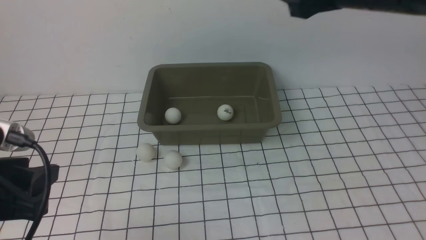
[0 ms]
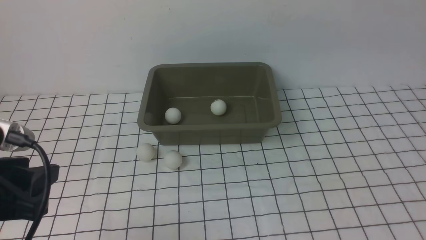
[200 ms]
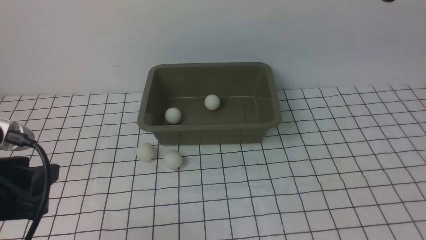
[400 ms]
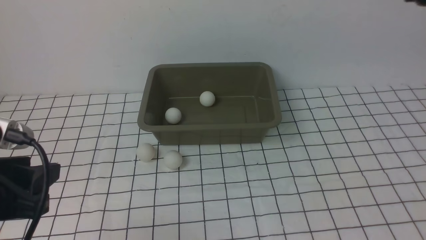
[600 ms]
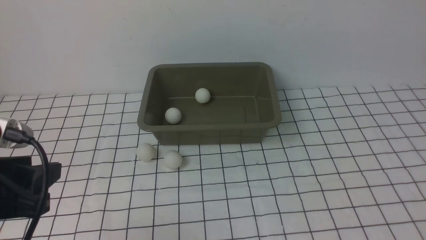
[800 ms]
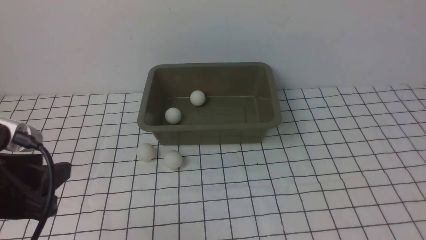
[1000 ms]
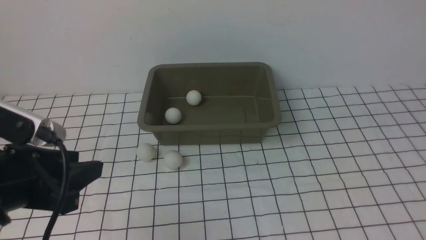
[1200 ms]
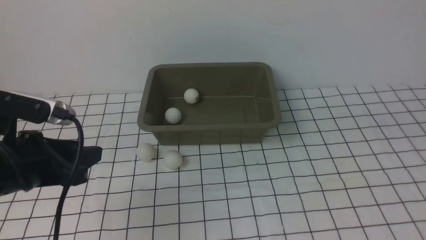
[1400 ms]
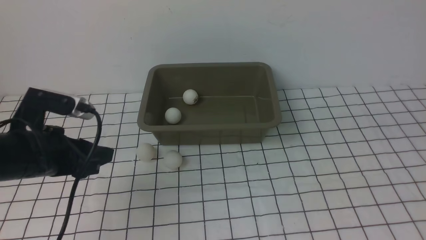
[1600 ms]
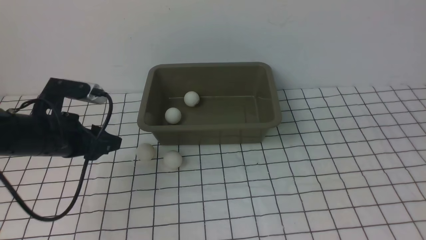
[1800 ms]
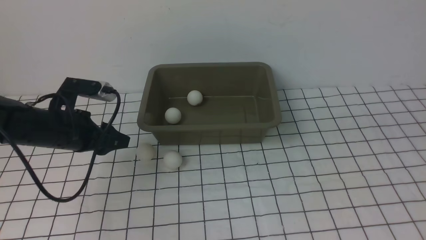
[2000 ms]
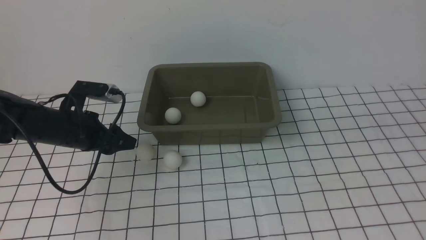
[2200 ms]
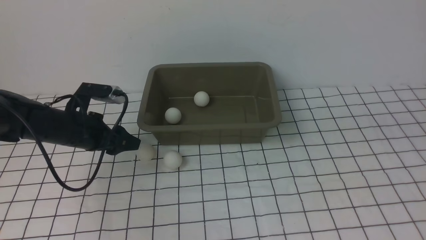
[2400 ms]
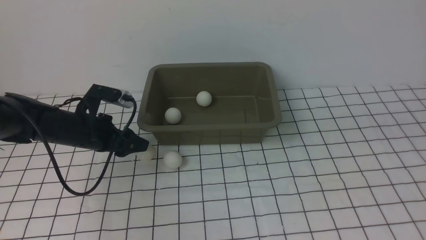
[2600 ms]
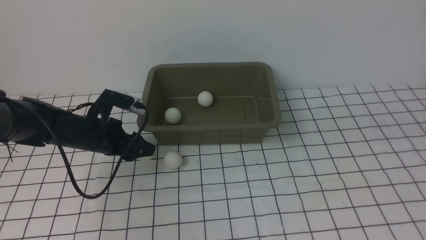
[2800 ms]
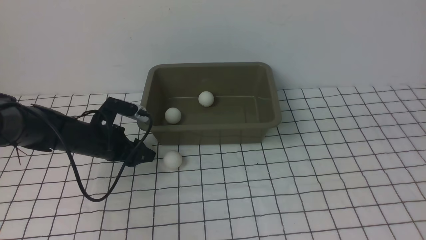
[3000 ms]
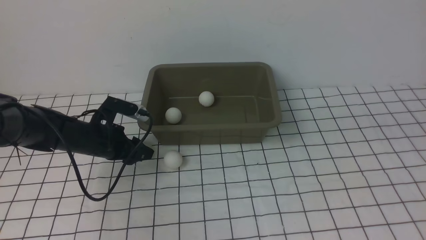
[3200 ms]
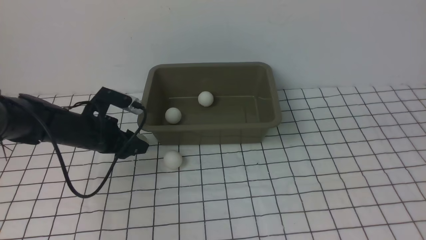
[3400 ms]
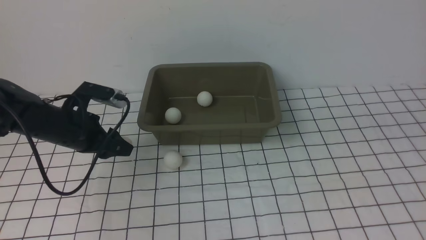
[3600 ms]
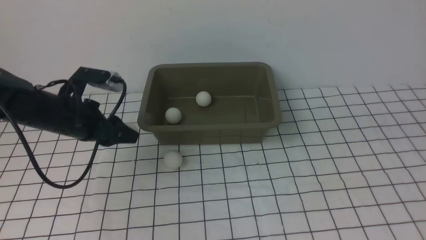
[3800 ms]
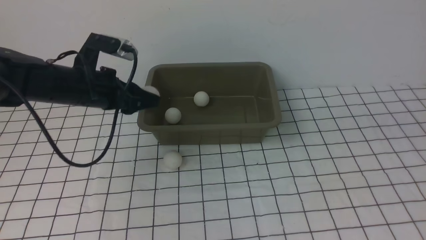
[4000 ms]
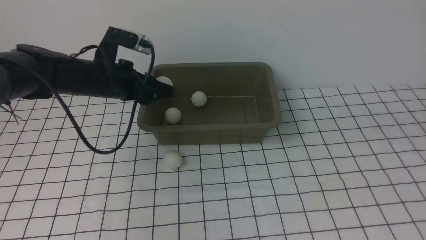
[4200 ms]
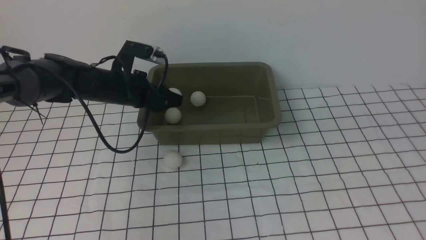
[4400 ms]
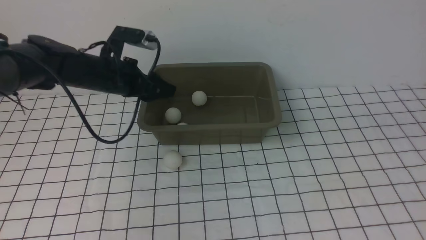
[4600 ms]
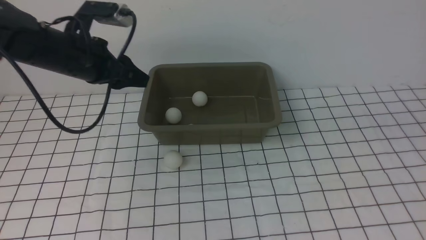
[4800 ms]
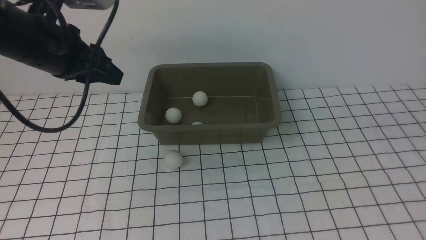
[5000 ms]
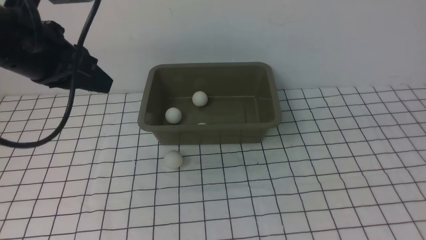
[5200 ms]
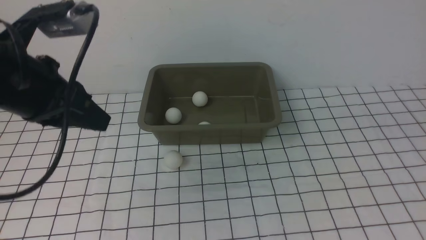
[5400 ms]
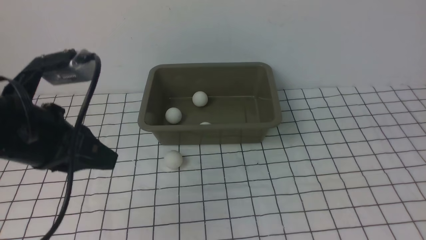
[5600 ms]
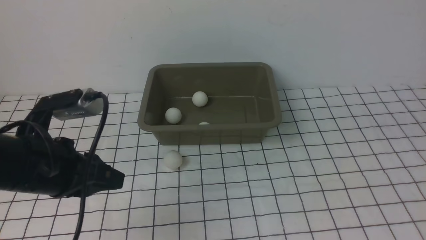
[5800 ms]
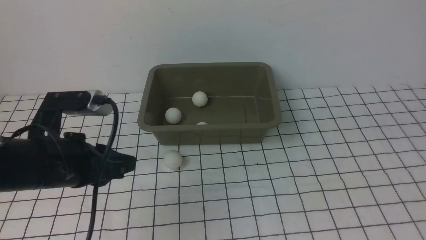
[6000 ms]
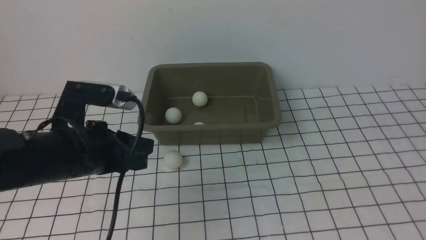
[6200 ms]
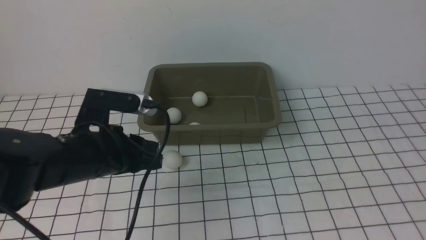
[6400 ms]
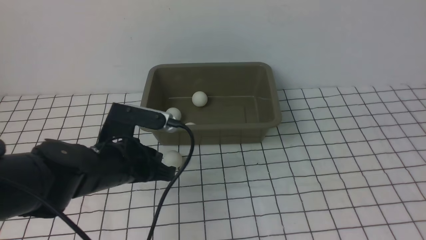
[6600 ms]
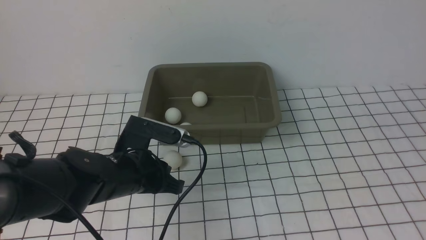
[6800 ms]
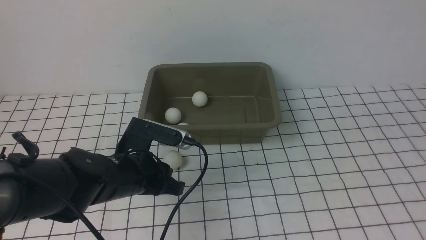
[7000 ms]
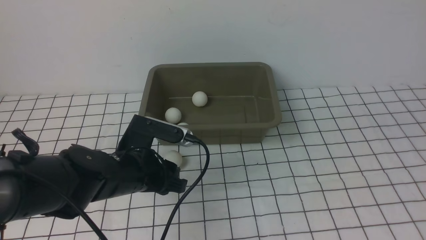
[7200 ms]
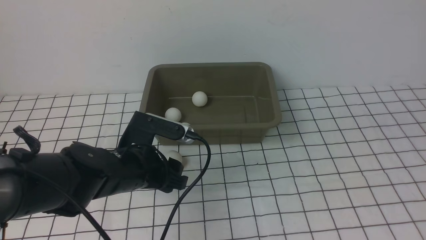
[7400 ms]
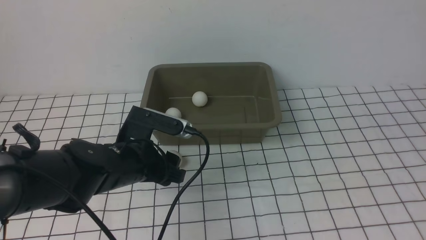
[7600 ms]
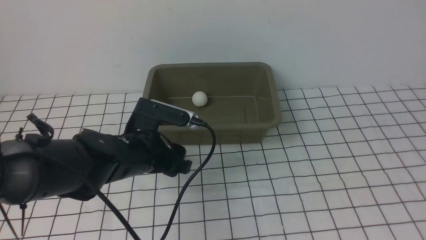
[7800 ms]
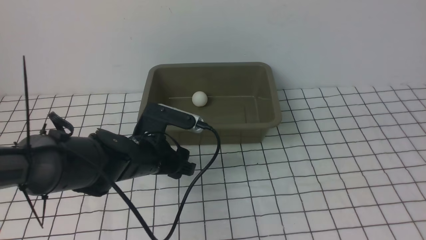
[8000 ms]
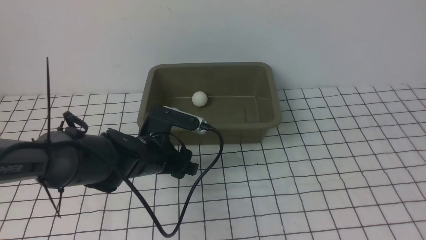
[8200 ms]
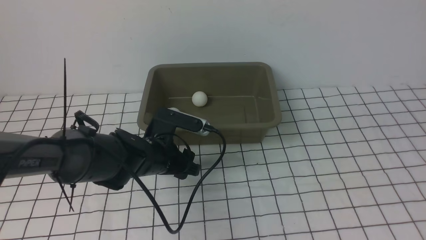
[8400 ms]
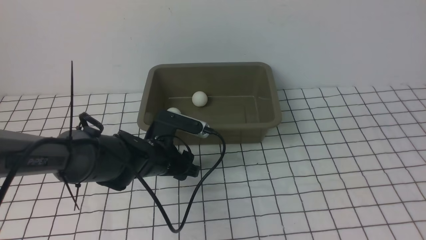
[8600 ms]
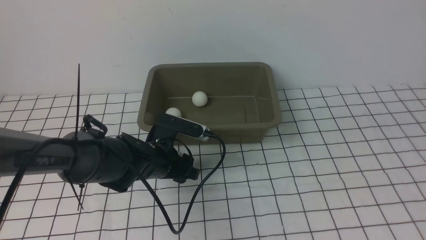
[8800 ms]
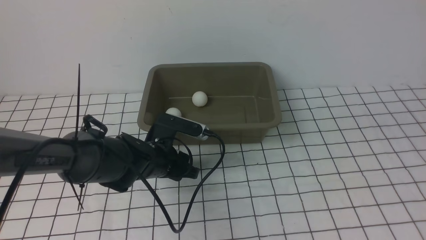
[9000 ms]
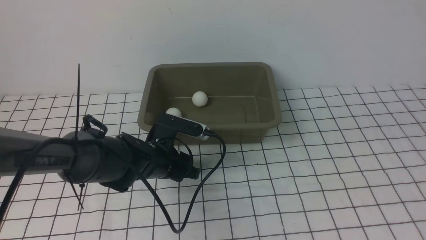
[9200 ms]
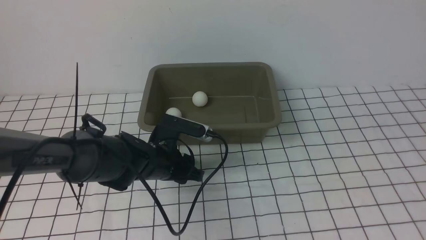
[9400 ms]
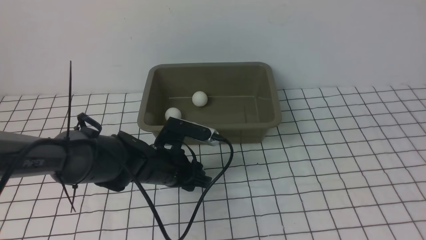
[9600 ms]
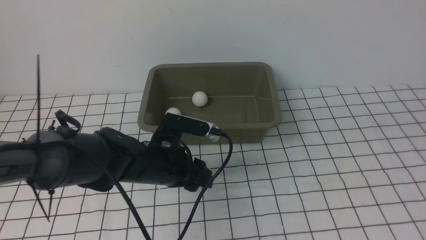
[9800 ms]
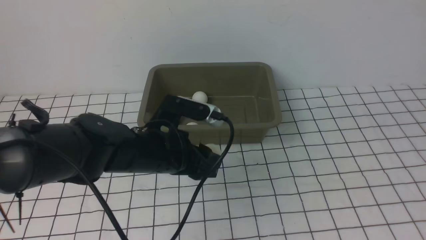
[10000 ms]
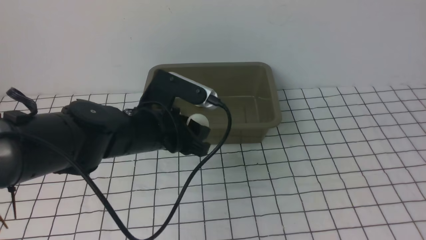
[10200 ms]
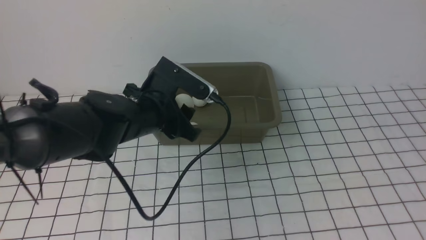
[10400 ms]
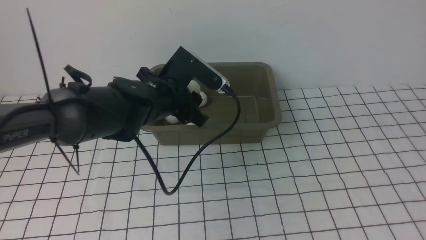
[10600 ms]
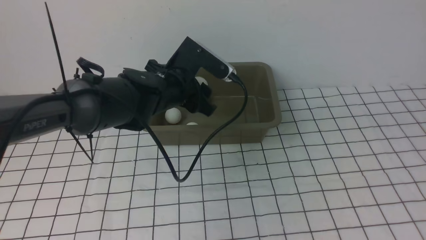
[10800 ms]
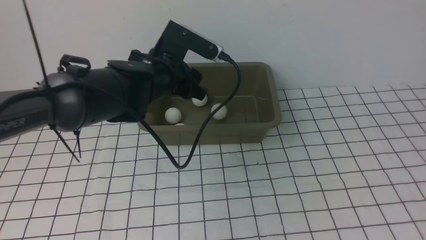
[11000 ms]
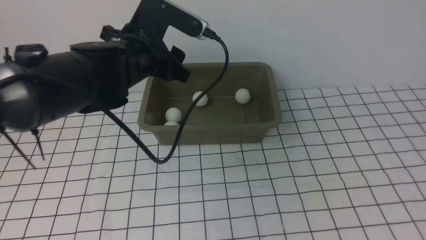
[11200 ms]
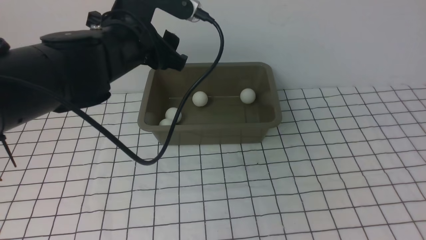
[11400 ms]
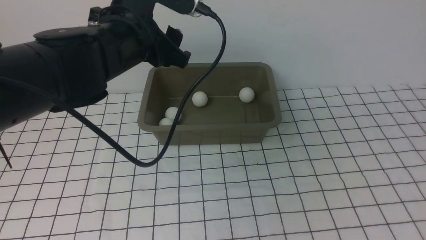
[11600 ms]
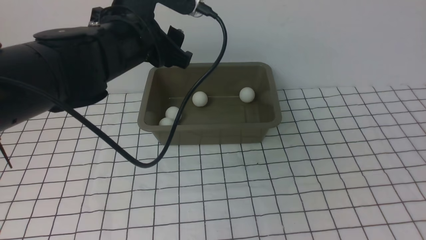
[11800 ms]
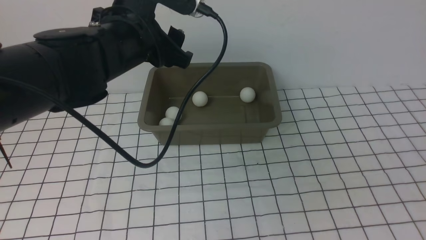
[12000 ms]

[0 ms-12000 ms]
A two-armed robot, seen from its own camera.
Step, 0 ms to 3400 ms: use the left arm to clamp the table tennis ball closest to it.
Step, 3600 ms to 4600 ms: use the left arm to put the table tennis ball into the box.
Step, 4800 ms to 9600 ms: use the left arm to clamp the table tennis ball closest to it.
Step, 9800 ms to 11000 ms: use the left arm to put the table tennis ball into the box.
0 ms to 1600 ms: The right gripper travels backward and downward by roughly 15 cm. Meanwhile the left gripper is displaced forward and downward by roughly 25 cm.
3000 ms to 4400 ms: The left gripper shifts approximately 20 cm upward, and closes its fingers.
4400 ms to 6000 ms: The left gripper heads downward and to the right, covering approximately 15 cm.
6000 ms to 7600 ms: The left gripper moves about 5 cm, and opens its fingers.
7600 ms to 9000 ms: The left gripper is displaced downward by some 5 cm.
9000 ms to 10400 ms: The left gripper shifts roughly 10 cm upward.
10400 ms to 12000 ms: The left gripper travels upward by approximately 10 cm. Meanwhile the right gripper moves backward and downward, some 15 cm.

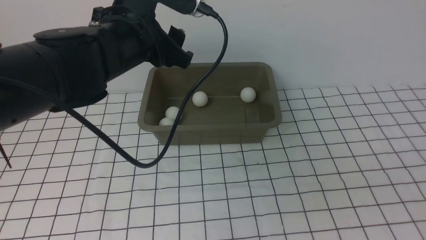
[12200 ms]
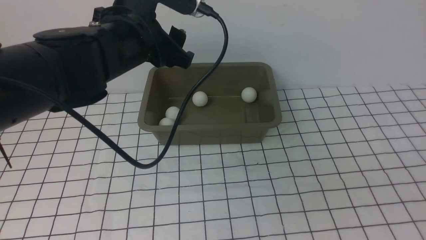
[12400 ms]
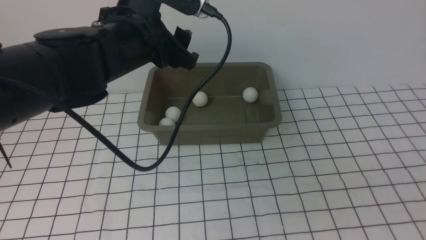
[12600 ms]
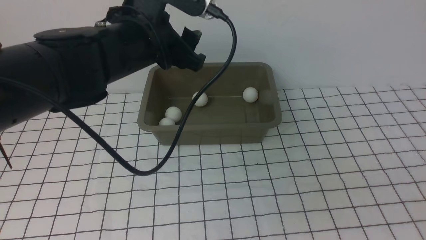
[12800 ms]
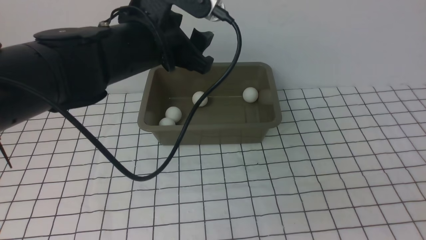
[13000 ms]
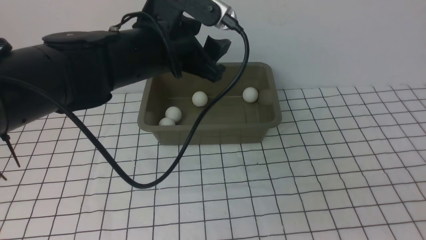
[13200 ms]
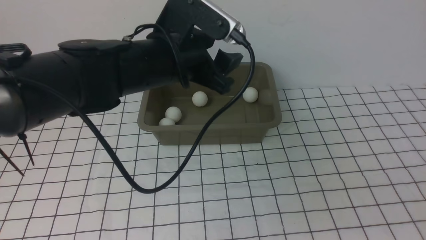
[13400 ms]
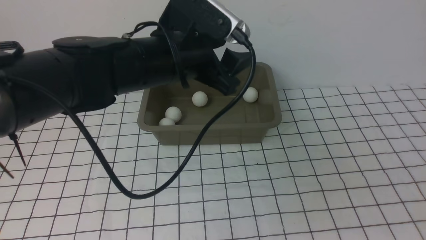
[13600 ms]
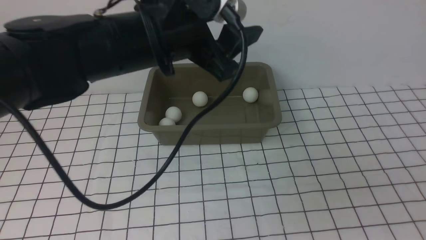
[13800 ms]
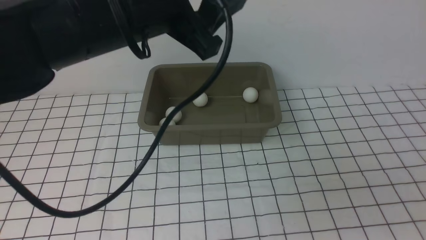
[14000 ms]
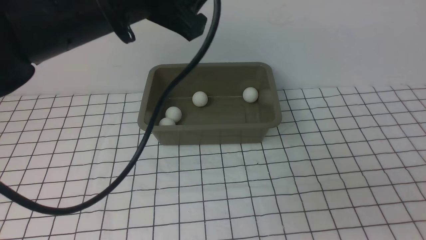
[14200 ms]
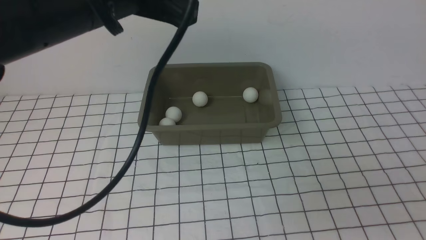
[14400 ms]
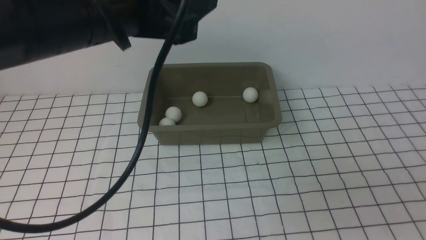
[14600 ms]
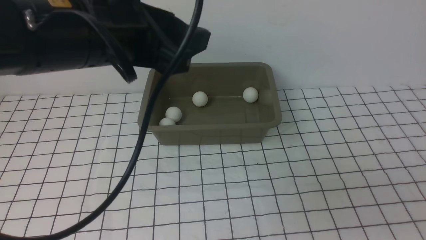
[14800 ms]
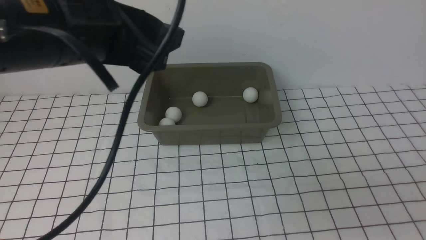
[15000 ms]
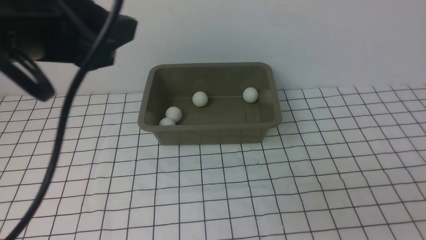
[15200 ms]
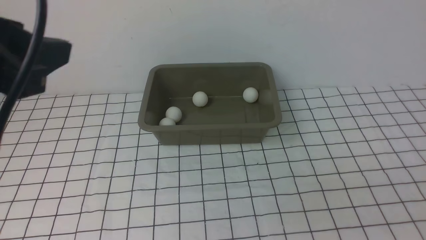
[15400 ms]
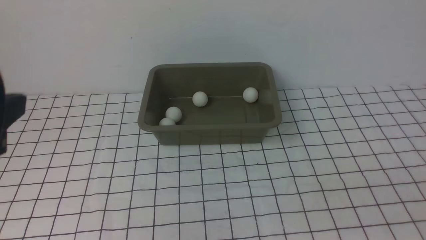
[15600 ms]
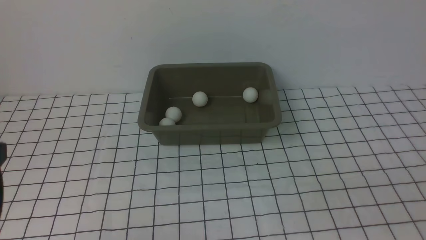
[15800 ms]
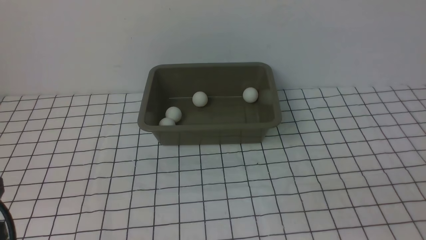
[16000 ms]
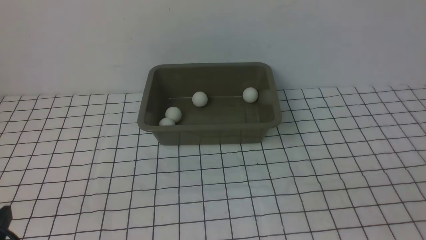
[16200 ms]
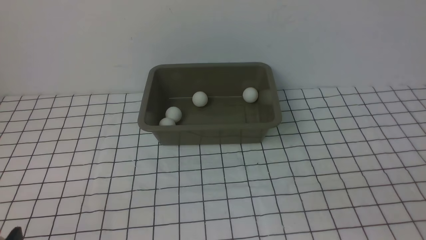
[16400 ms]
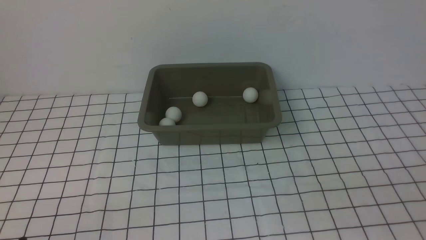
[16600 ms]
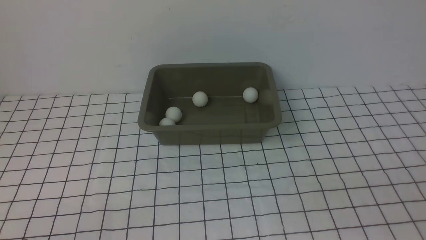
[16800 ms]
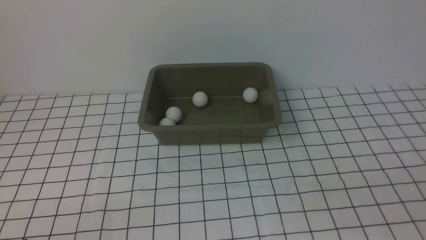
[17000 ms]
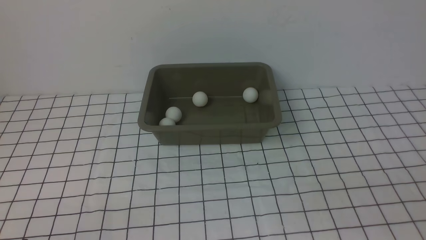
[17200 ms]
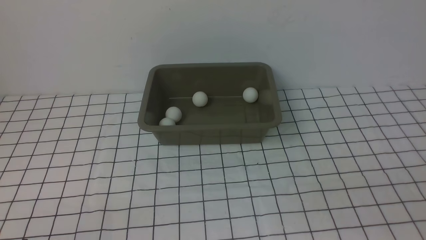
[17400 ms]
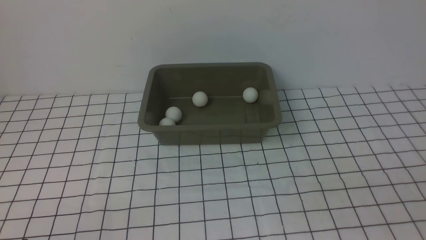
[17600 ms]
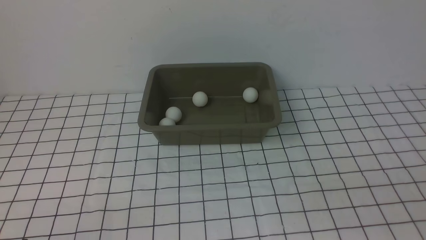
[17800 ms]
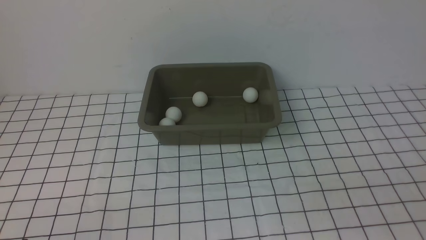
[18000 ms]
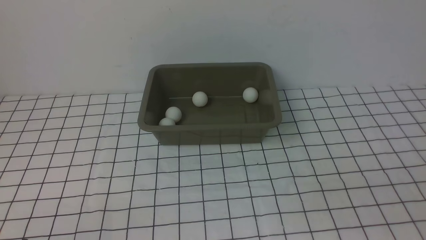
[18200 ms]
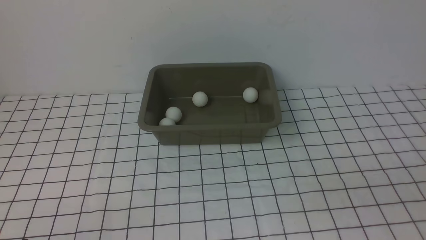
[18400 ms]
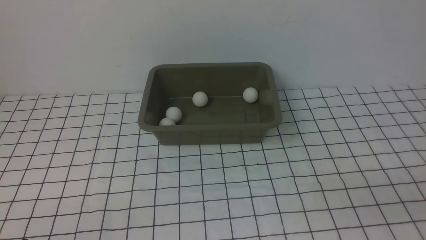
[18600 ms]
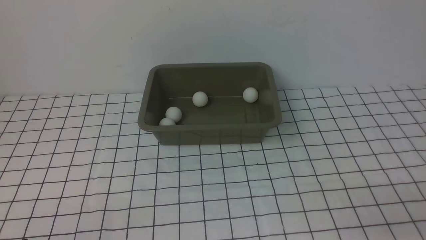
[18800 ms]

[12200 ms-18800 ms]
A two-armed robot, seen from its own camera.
12200 ms to 13800 ms: The left gripper changes place by about 5 cm.
13800 ms to 15400 ms: The left gripper heads backward, to the left and upward, covering some 20 cm.
15400 ms to 17200 ms: The left gripper shifts approximately 30 cm downward and backward.
